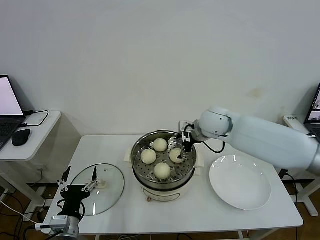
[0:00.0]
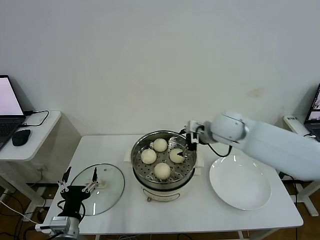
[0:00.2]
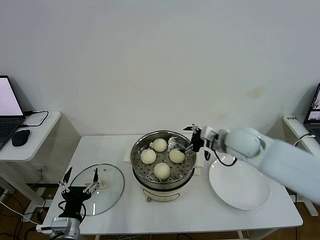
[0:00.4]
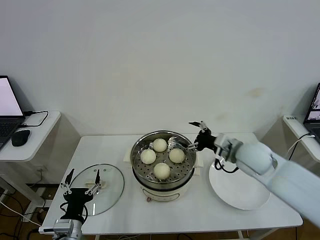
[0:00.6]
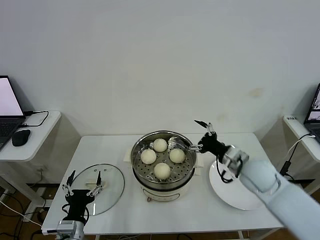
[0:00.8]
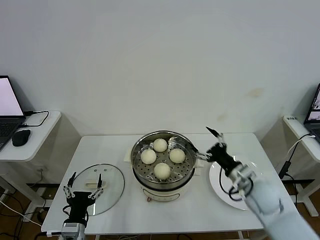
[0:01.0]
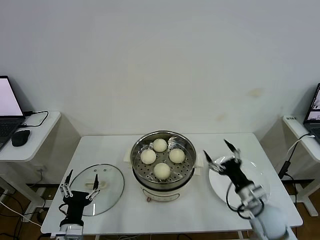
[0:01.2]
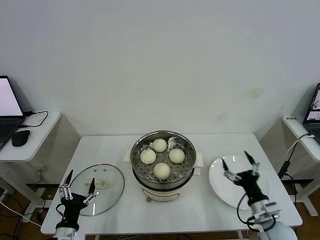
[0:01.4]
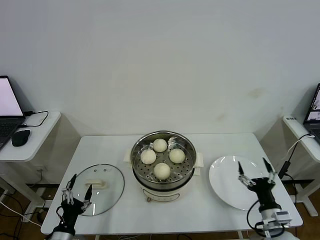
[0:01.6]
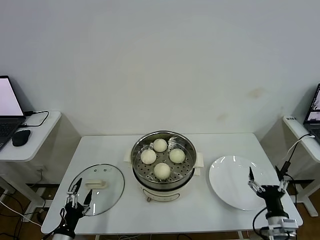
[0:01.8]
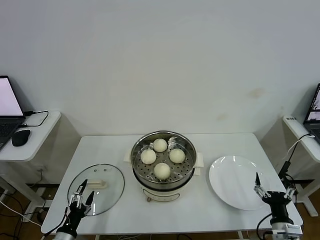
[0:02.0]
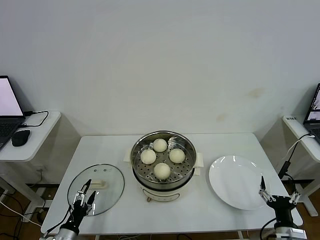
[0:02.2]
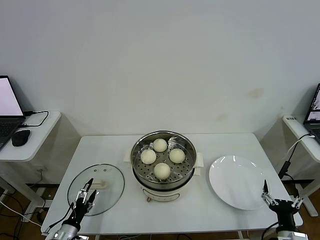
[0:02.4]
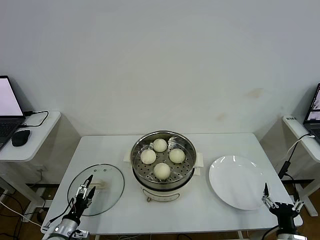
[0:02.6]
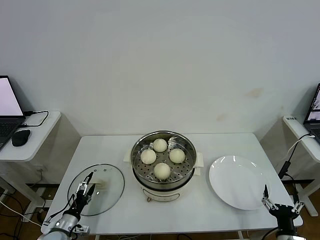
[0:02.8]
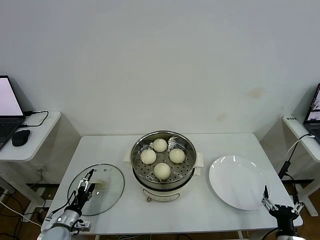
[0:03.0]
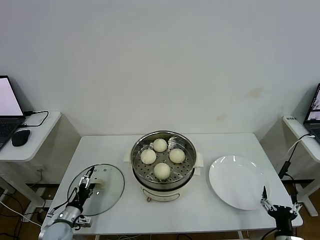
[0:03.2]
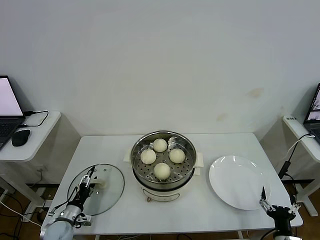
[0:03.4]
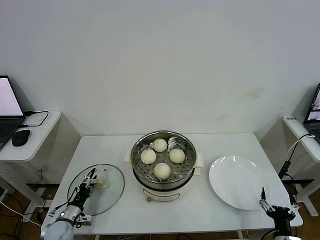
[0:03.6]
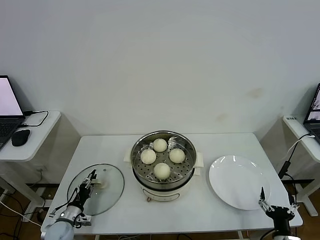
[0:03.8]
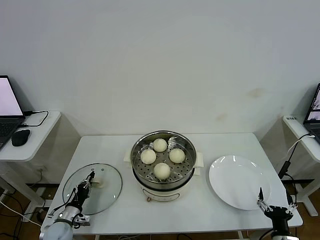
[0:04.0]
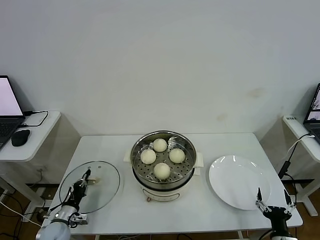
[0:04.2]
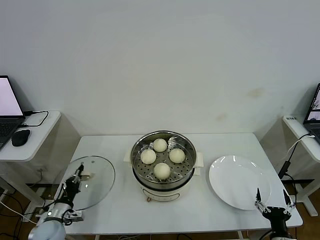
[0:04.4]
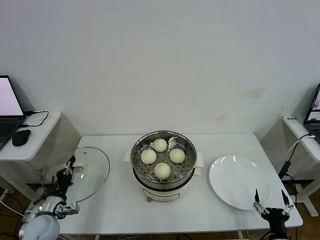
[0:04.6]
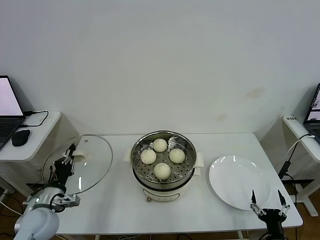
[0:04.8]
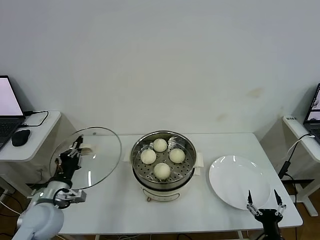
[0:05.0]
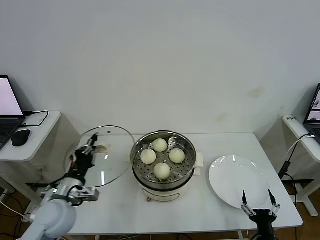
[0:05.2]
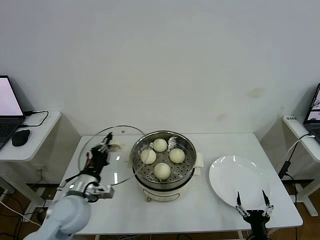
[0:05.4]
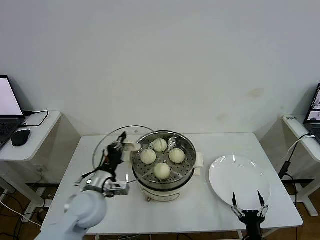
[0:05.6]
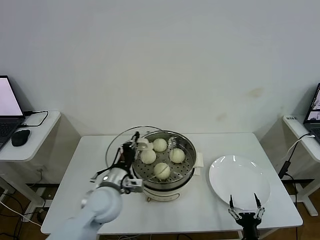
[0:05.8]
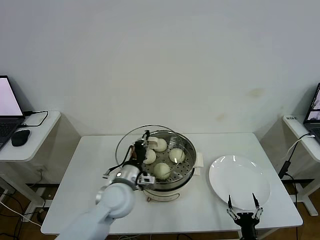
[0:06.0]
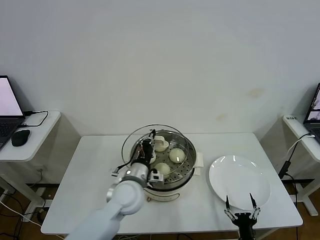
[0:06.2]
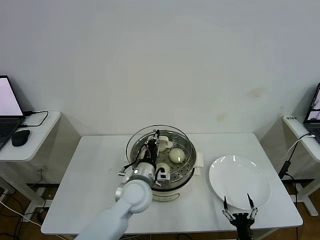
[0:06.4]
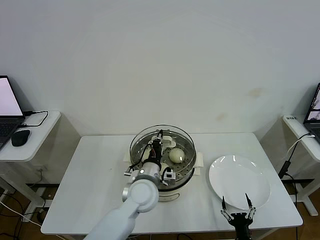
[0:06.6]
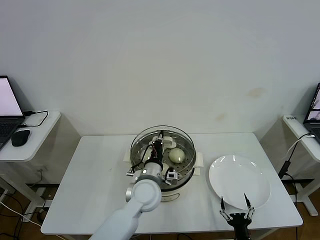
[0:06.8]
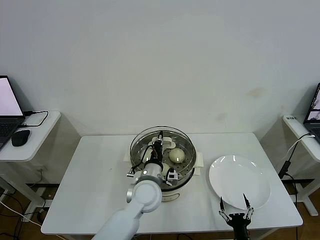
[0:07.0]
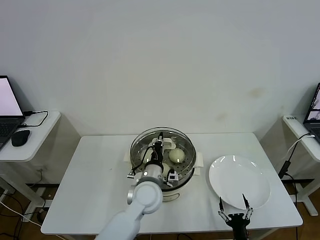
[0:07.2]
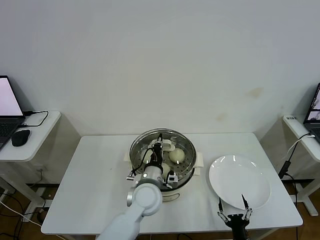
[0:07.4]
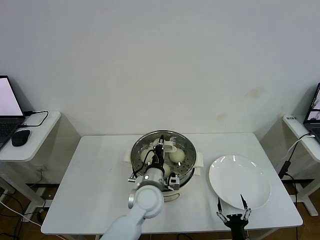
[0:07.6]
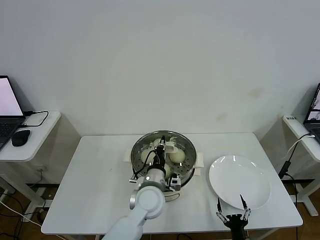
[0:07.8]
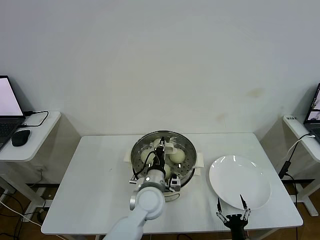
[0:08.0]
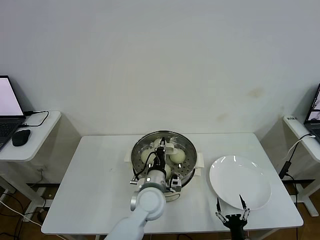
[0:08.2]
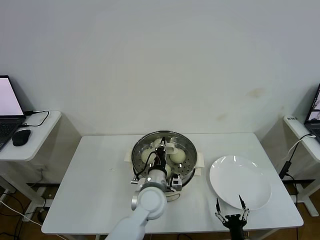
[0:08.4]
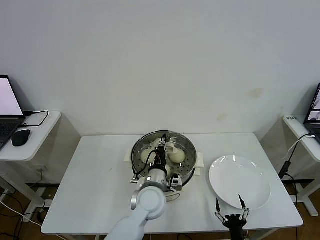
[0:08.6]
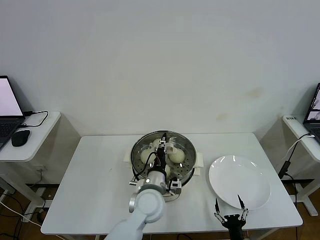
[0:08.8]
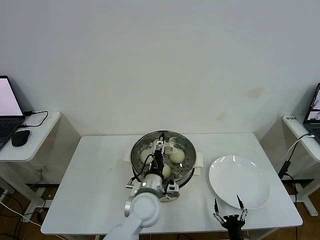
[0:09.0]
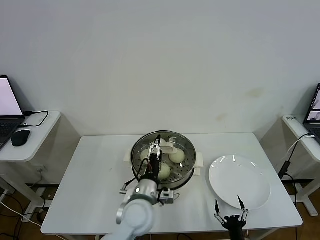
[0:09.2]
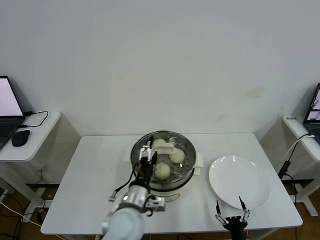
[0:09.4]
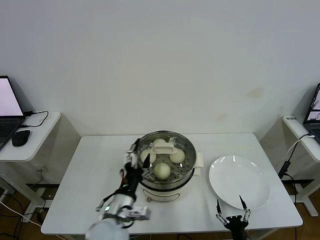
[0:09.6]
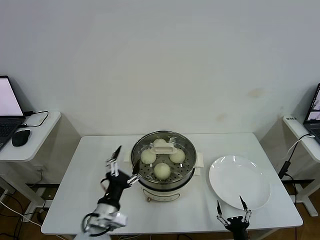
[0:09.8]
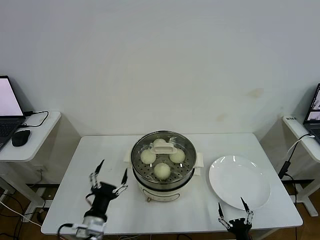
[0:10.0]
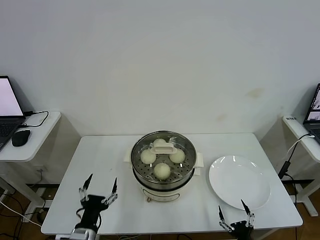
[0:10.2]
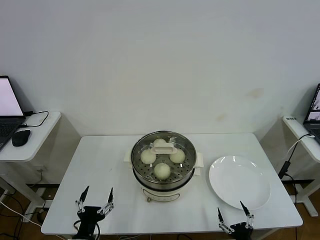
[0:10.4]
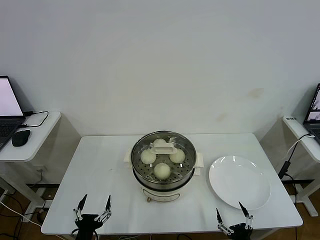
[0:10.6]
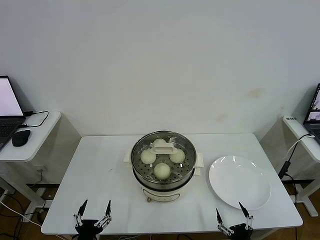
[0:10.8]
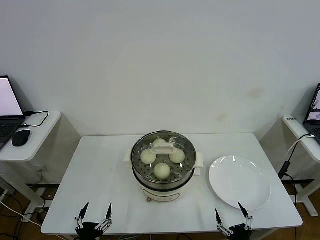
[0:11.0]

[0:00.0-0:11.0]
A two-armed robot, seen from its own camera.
Step, 0:00.2 to 0:04.2: Grasp the pot lid with left gripper.
Step, 0:04.4 to 0:09.2: Place the pot lid on the steamer with left gripper.
0:00.0 to 0:01.6: The left gripper heads downward, covering about 5 cm. Meanwhile the right gripper shifts approximately 40 cm backward, downward and to the right.
0:01.6 to 0:03.2: The left gripper moves forward, downward and to the left, roughly 15 cm; the right gripper travels backward and downward by some 10 cm.
0:03.2 to 0:04.8: The left gripper moves upward, some 15 cm, and closes up.
0:04.8 to 0:06.2: The left gripper travels to the right by roughly 25 cm; the right gripper heads to the left, covering approximately 5 cm.
0:06.2 to 0:07.8: The left gripper moves to the right, some 5 cm.
0:07.8 to 0:09.4: The left gripper goes roughly 5 cm backward, and opens up.
0:09.4 to 0:11.0: The left gripper shifts roughly 25 cm to the left, backward and downward. The right gripper shifts about 5 cm upward.
